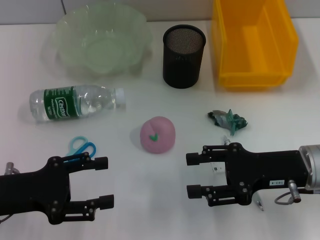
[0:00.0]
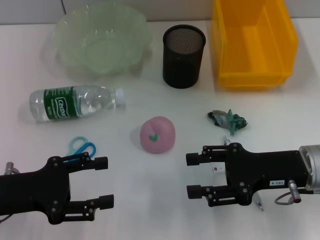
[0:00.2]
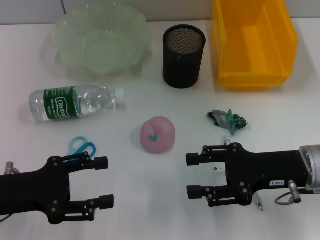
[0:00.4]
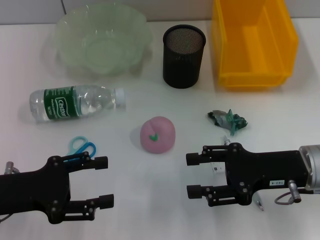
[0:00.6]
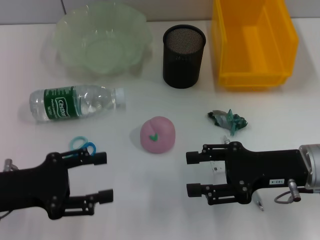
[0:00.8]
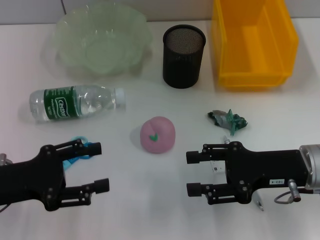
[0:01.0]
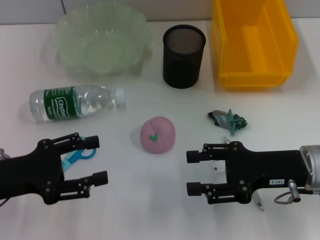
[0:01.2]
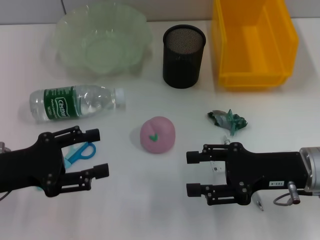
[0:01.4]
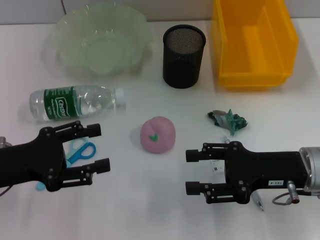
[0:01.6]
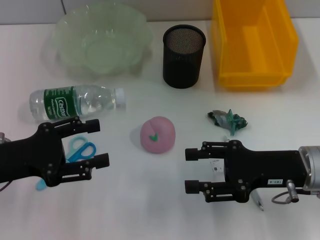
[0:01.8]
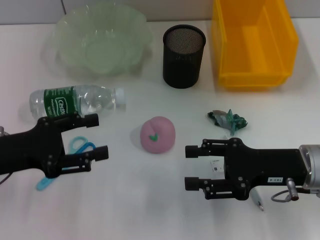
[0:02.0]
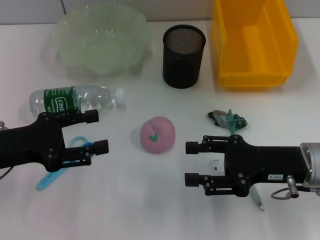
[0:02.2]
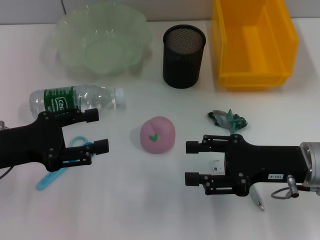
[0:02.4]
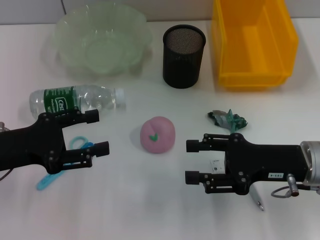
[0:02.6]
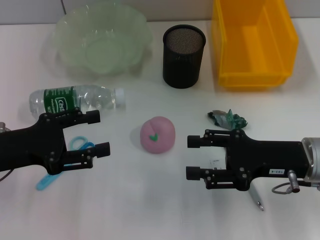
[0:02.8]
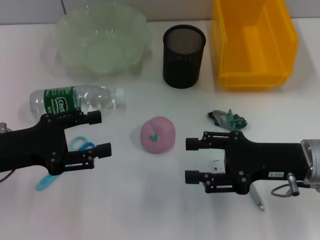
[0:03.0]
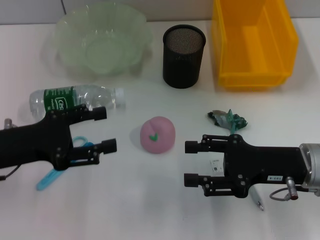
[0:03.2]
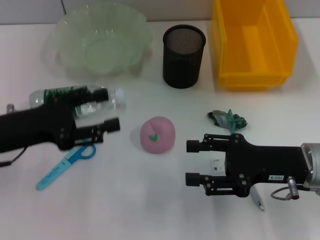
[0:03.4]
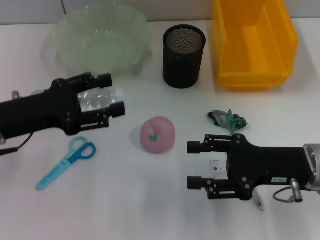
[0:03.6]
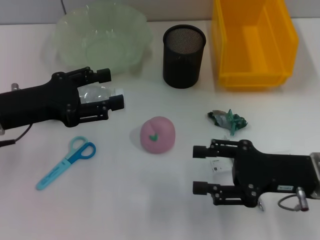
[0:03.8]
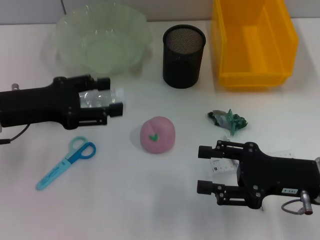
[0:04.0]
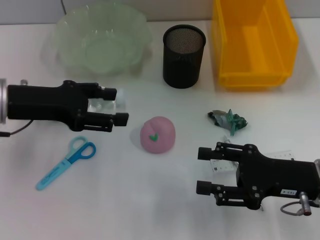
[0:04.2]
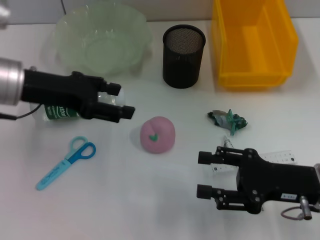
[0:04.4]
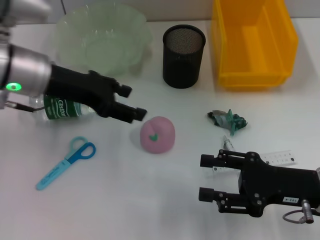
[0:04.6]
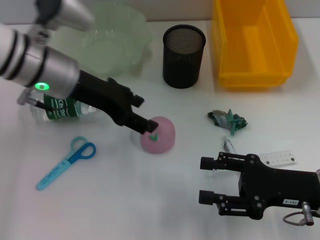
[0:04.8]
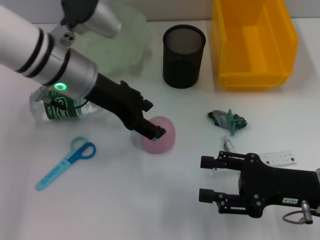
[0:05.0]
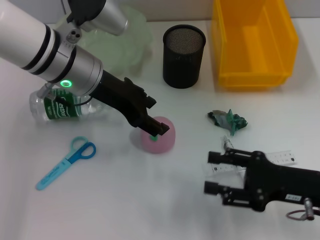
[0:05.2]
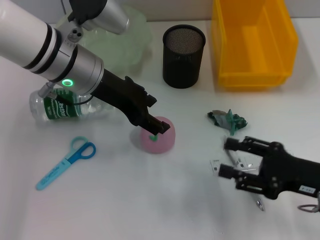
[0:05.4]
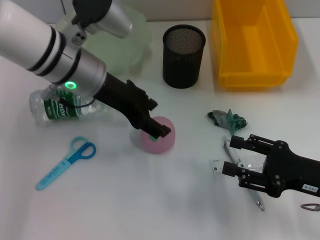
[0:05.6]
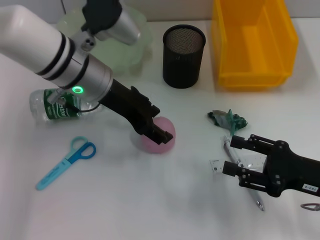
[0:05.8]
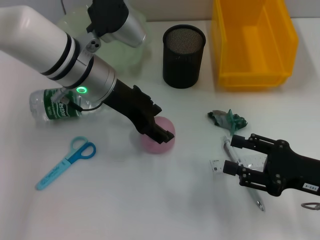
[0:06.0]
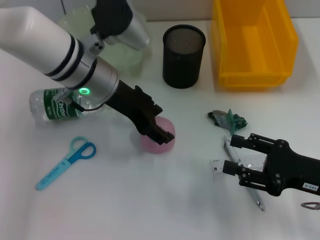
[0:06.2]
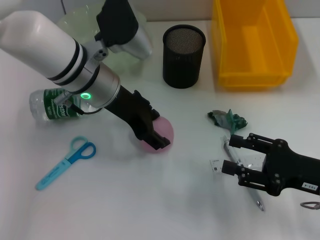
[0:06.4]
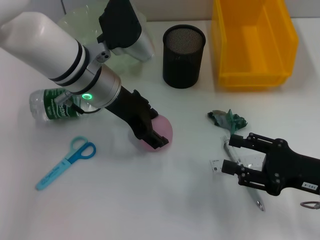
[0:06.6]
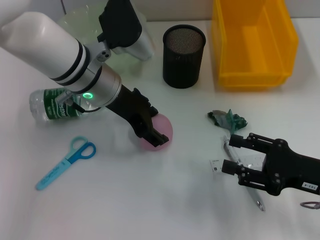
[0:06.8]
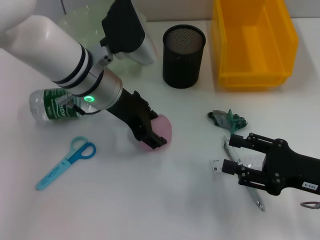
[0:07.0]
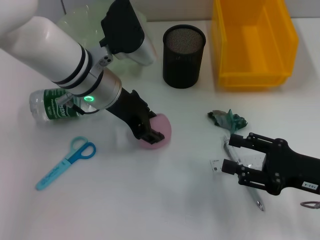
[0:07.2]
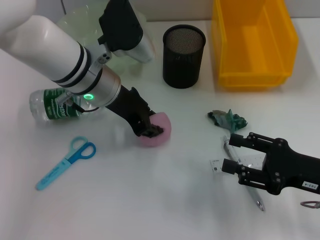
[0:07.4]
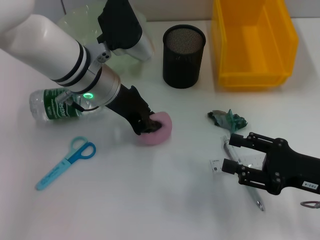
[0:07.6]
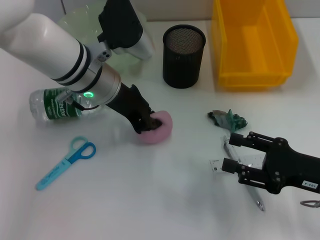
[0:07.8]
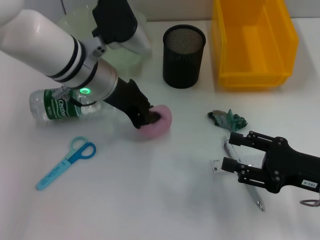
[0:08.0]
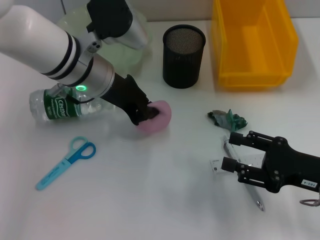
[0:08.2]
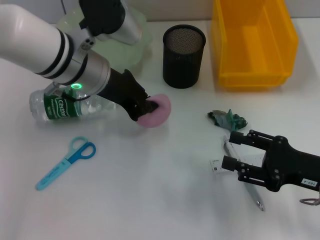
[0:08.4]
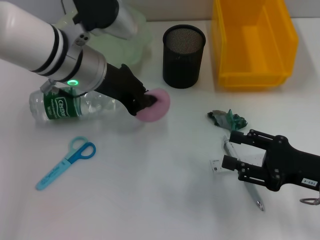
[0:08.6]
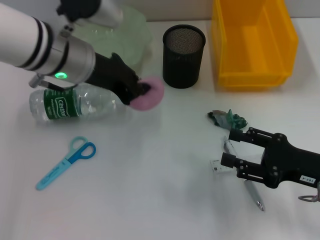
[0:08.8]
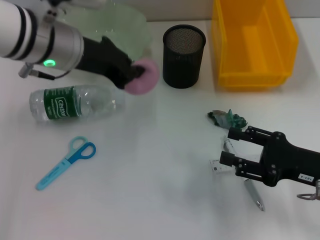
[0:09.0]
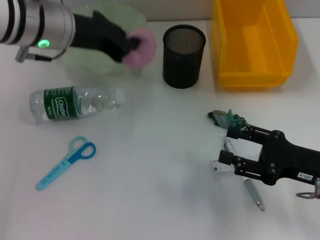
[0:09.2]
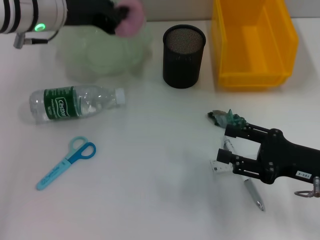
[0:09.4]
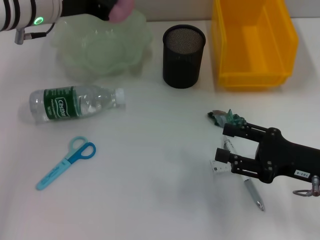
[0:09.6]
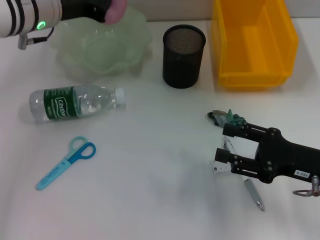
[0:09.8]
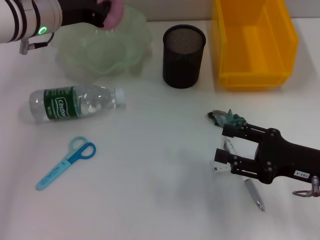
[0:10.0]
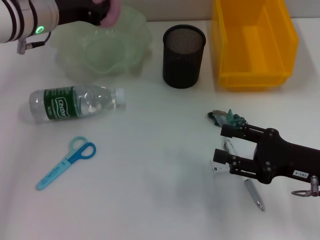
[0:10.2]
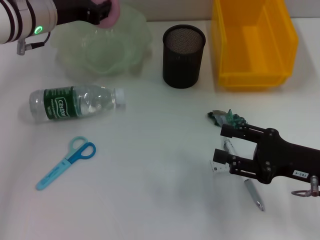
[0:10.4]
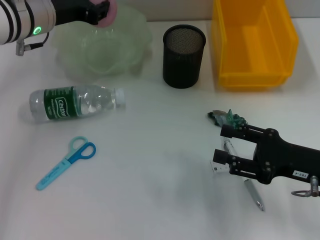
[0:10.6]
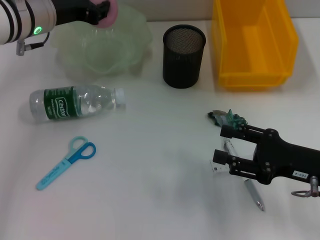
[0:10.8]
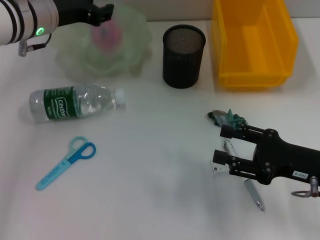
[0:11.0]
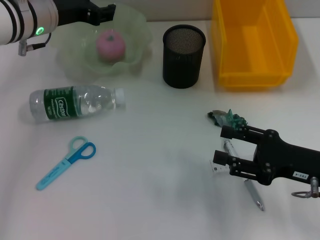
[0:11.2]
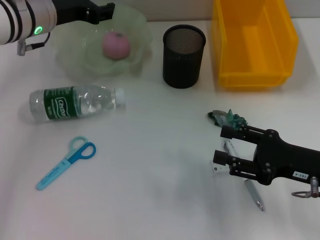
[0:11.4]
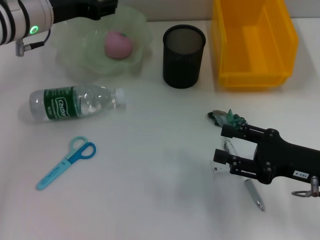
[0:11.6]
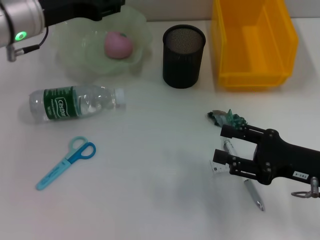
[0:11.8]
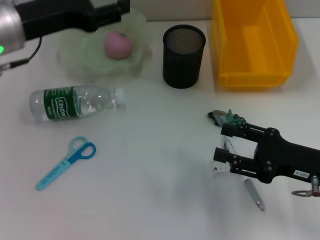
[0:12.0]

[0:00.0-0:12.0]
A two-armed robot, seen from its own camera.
Step, 0:00.0 to 0:07.6: Grab the peach with the left hand.
Step, 0:07.8 to 0:11.4: Place the peach into the fruit bowl with the left hand.
0:00.0 to 0:03.0: The grippers move only a little.
0:03.0 to 0:04.4: The left gripper travels forward, upward and to the right by some 10 cm.
0:04.4 to 0:06.0: The left gripper travels to the right by some 10 cm.
0:06.0 to 0:07.6: The left gripper closes.
0:07.6 to 0:09.0: The left gripper travels upward by some 5 cm.
0:09.0 to 0:10.4: The left gripper travels forward by approximately 5 cm.
0:10.4 to 0:12.0: The left gripper opens up.

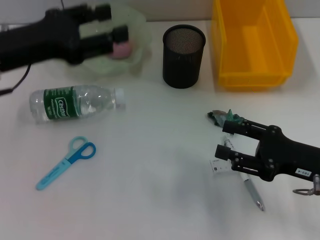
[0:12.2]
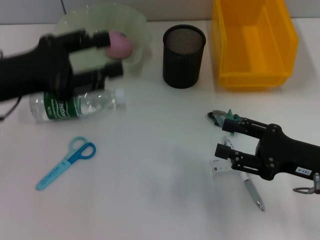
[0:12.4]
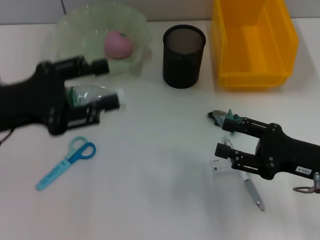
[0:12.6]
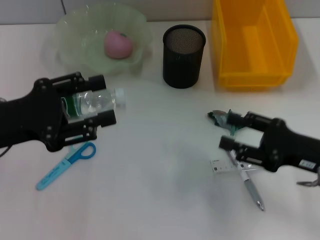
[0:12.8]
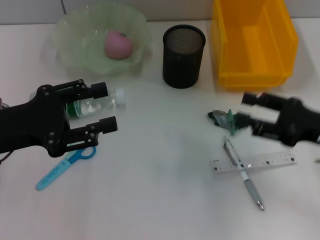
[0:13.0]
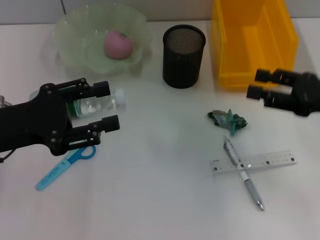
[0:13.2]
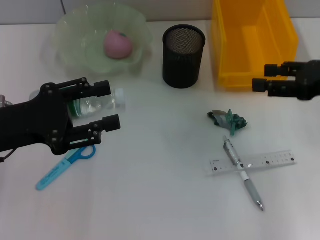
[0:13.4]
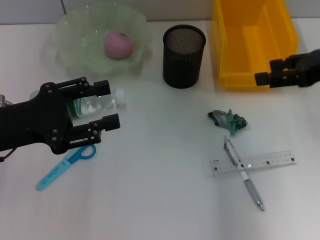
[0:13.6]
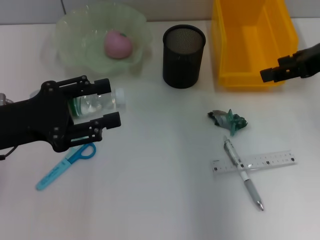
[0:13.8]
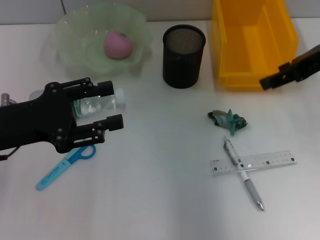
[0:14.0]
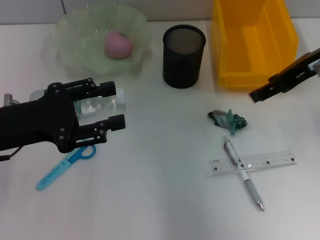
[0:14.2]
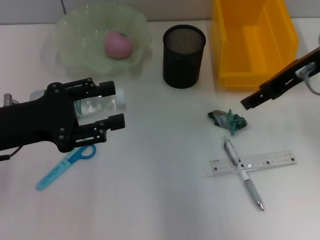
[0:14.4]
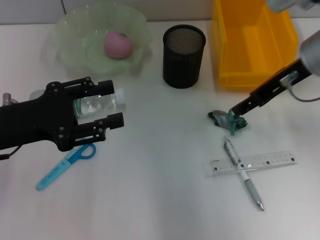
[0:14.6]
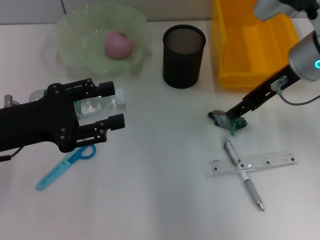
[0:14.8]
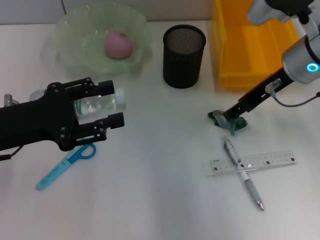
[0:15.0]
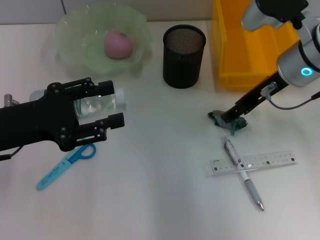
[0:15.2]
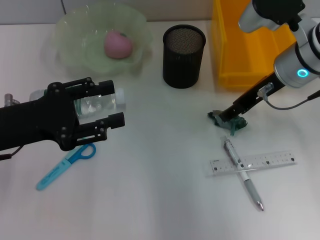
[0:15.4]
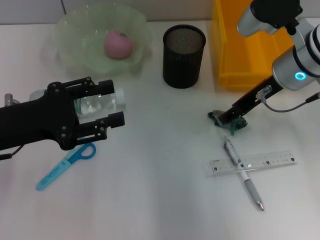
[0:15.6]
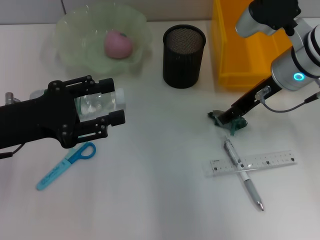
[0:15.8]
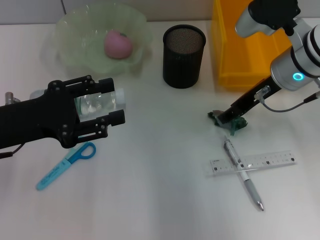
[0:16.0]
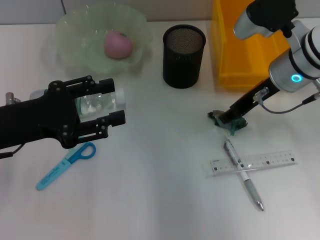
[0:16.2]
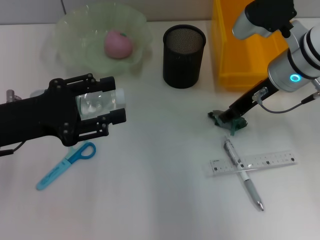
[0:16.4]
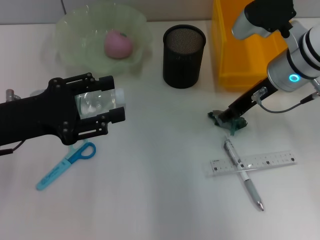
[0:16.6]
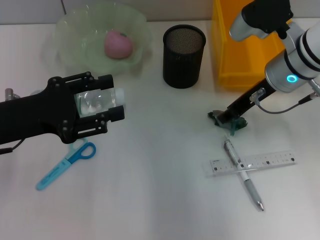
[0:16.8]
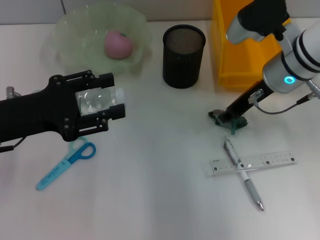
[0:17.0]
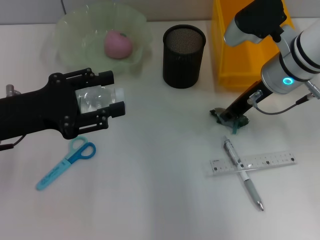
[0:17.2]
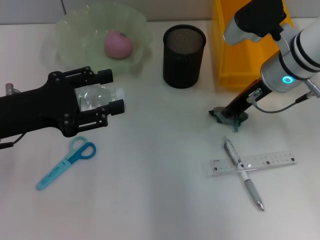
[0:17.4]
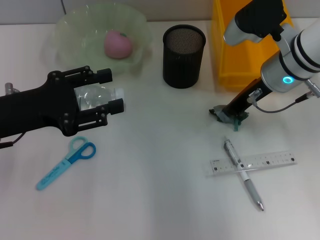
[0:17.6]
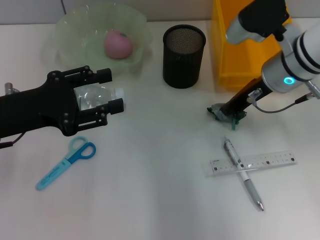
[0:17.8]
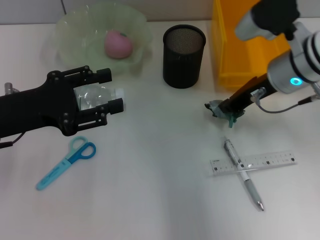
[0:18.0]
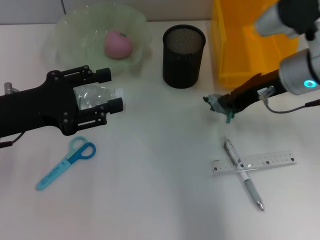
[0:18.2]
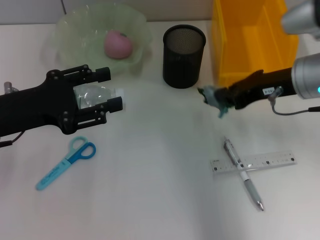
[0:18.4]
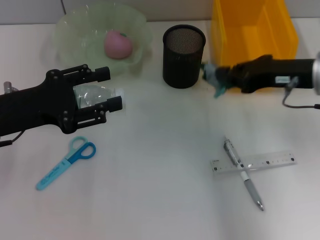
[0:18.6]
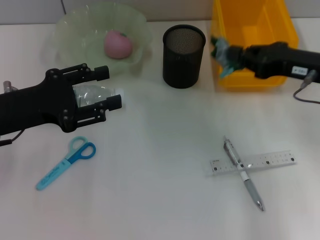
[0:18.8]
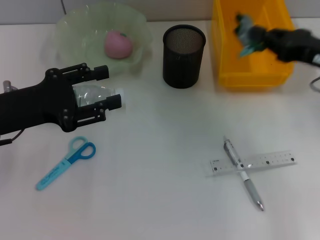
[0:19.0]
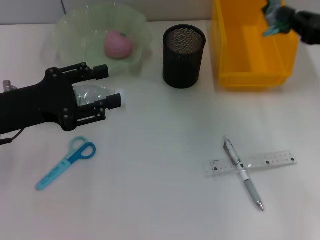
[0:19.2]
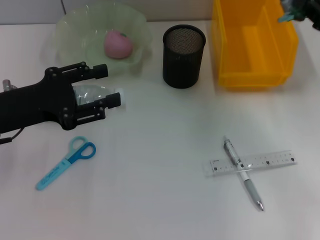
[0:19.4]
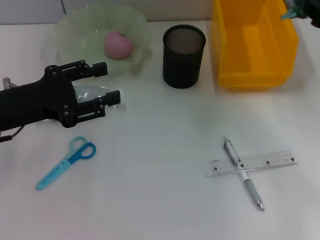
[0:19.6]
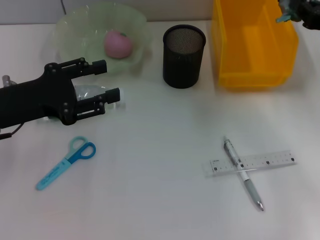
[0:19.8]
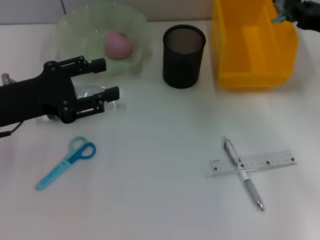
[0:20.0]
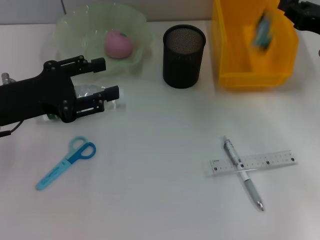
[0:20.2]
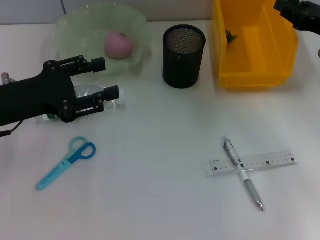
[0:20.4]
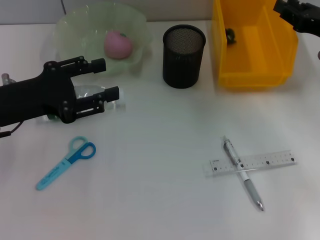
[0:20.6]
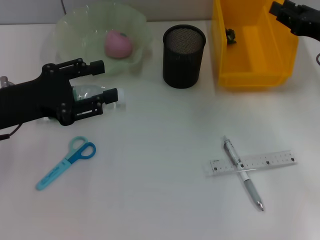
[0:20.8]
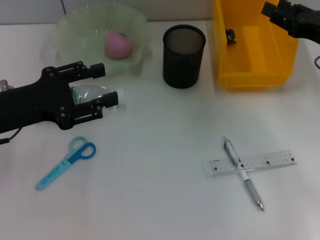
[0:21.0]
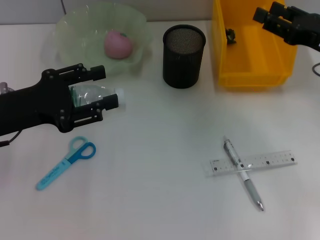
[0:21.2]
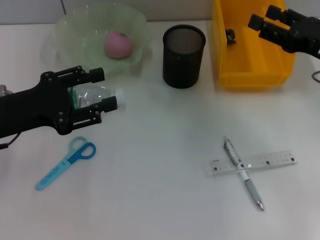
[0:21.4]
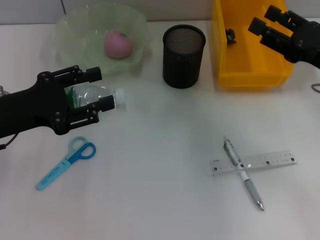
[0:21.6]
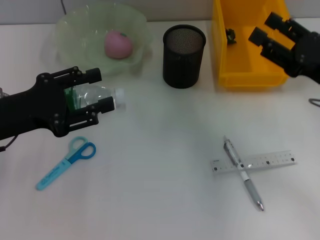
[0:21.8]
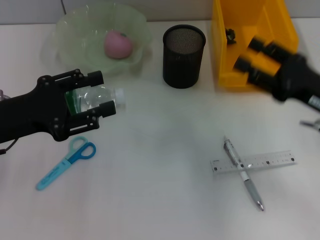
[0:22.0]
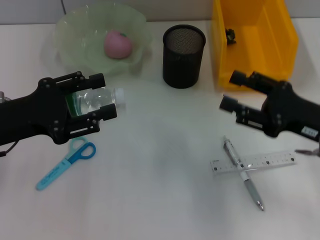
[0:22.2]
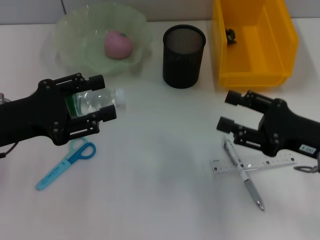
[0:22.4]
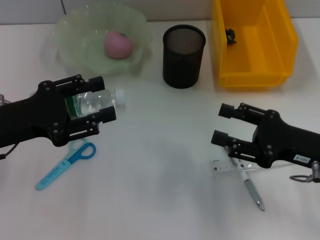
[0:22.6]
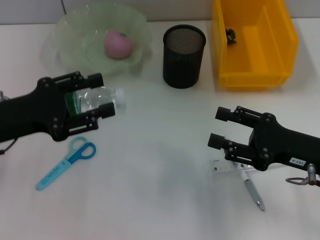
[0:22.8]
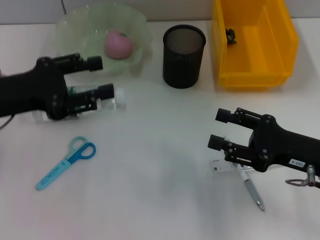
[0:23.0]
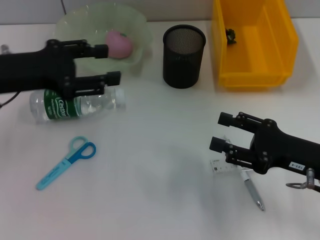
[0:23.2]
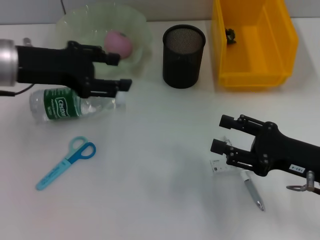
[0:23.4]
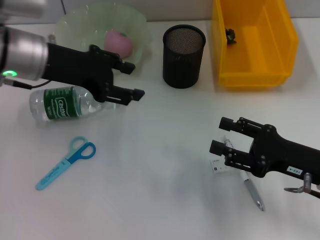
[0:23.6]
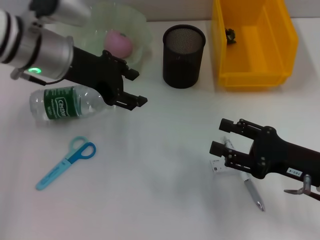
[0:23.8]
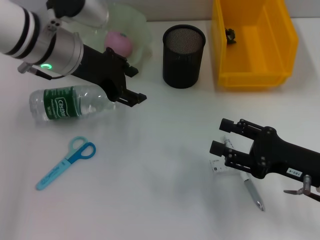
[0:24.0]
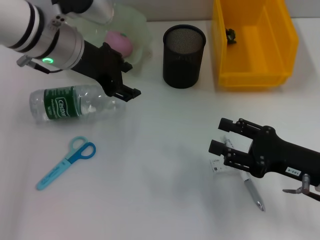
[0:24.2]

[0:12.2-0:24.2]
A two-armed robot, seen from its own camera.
Step, 0:12.2 to 0:17.4: Grab the plastic with the right hand.
Step, 0:17.8 to 0:20.4: Place the plastic into the trash can with the right hand.
0:12.2 to 0:13.8: The right gripper goes approximately 20 cm upward and forward, while the left gripper is displaced backward and downward by about 10 cm.
0:13.8 to 0:15.2: The right gripper shifts some 10 cm to the left and downward.
0:15.2 to 0:16.6: There are only small adjustments of the grippers.
0:16.6 to 0:18.2: The right gripper closes up.
0:18.2 to 0:19.8: The right gripper goes some 10 cm to the right.
0:19.8 to 0:21.2: The right gripper opens.
0:21.2 to 0:22.6: The right gripper goes about 10 cm backward and downward.
0:22.6 to 0:24.2: The left gripper heads forward, to the right and upward, covering some 20 cm.
